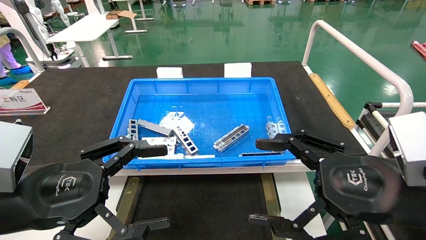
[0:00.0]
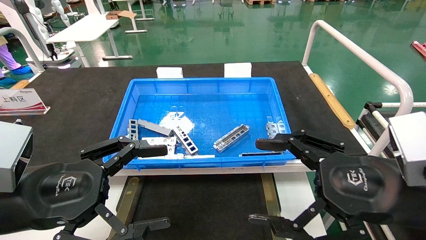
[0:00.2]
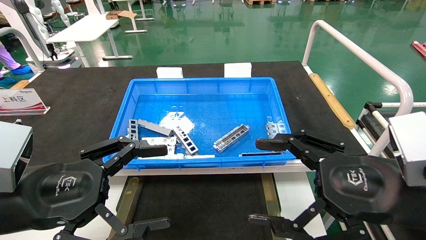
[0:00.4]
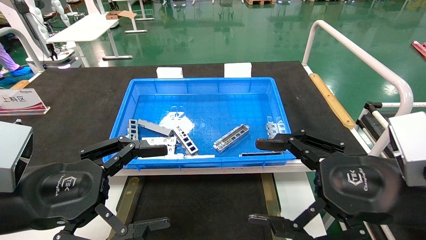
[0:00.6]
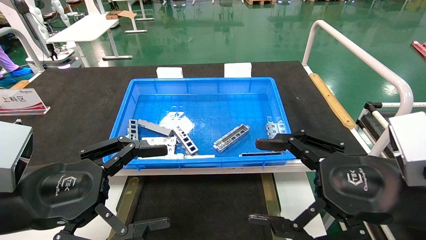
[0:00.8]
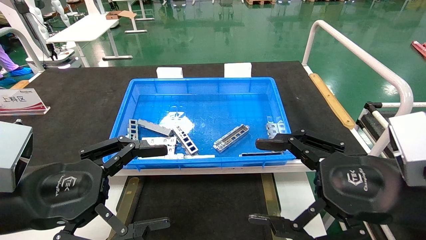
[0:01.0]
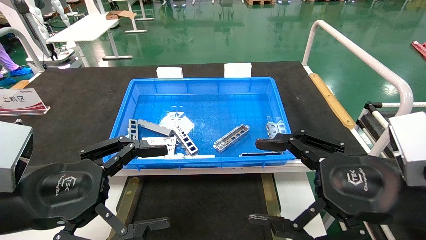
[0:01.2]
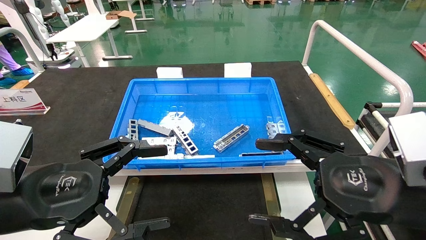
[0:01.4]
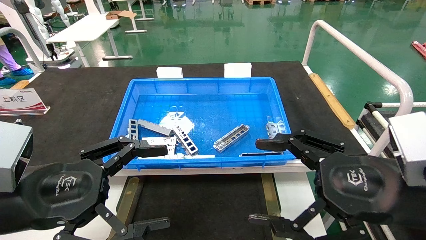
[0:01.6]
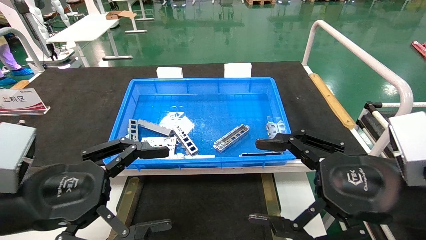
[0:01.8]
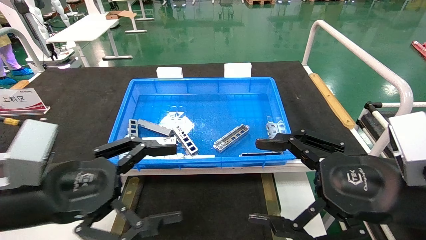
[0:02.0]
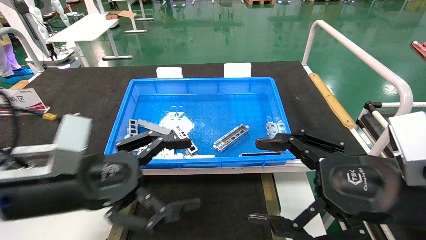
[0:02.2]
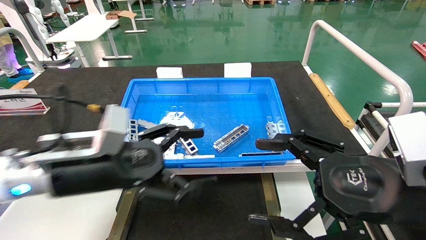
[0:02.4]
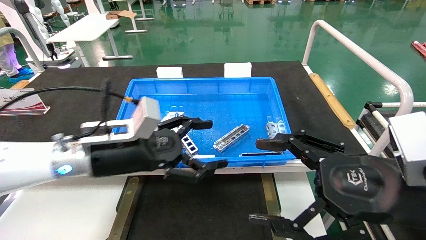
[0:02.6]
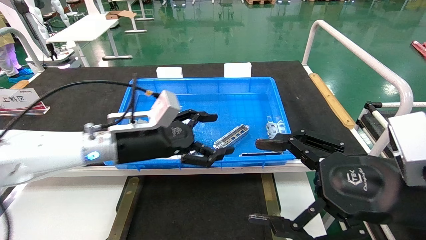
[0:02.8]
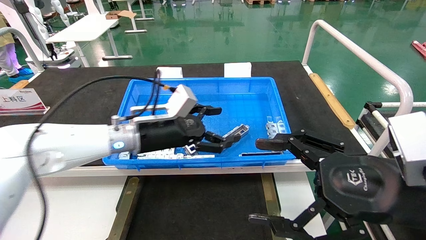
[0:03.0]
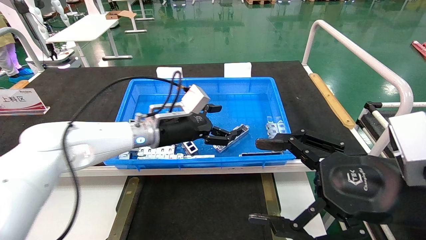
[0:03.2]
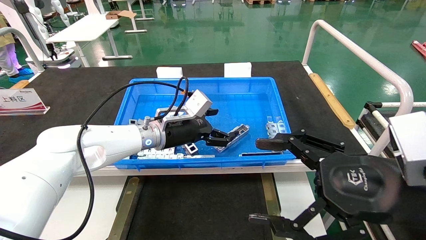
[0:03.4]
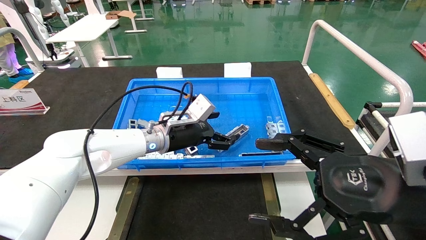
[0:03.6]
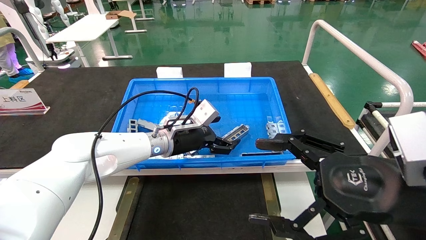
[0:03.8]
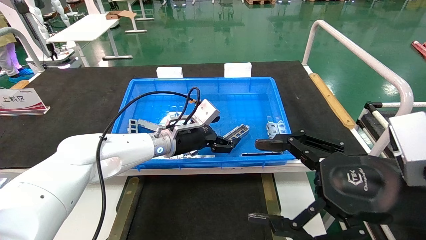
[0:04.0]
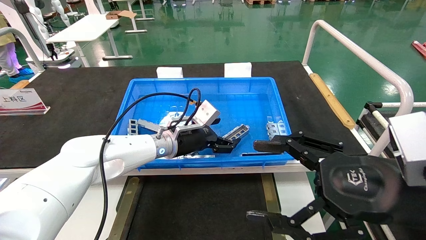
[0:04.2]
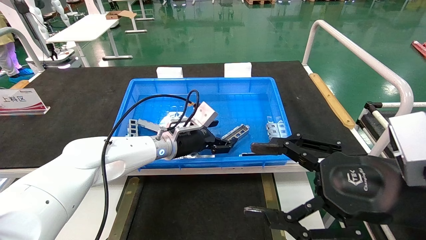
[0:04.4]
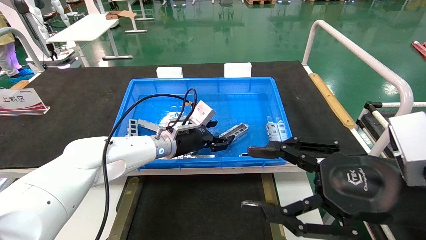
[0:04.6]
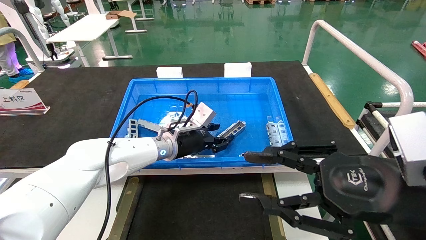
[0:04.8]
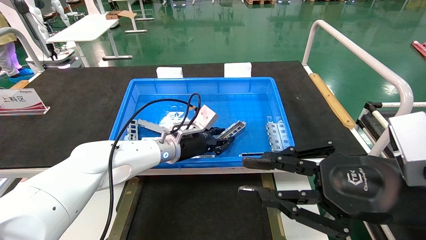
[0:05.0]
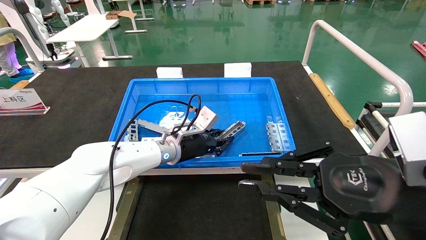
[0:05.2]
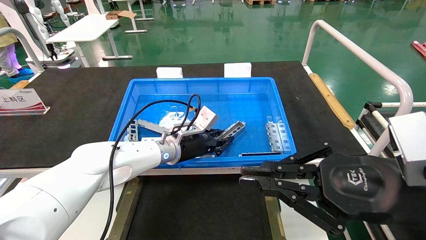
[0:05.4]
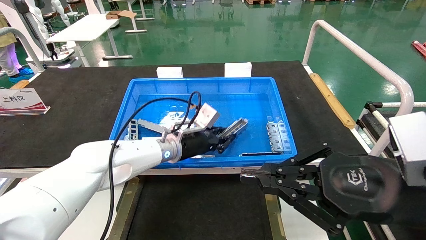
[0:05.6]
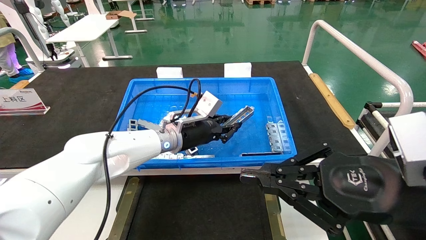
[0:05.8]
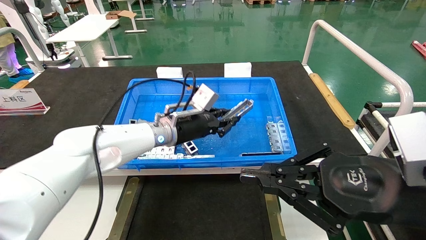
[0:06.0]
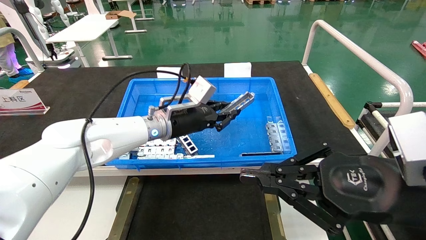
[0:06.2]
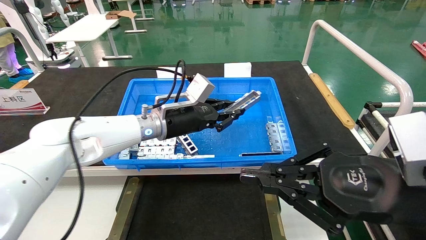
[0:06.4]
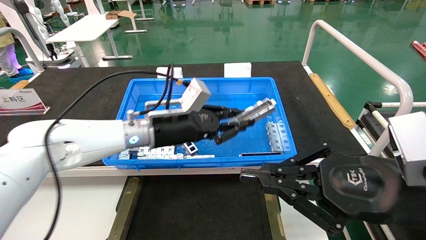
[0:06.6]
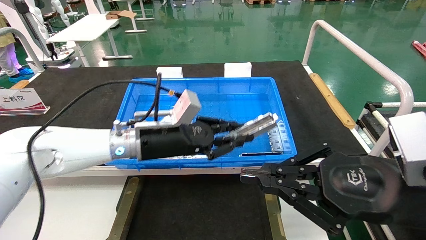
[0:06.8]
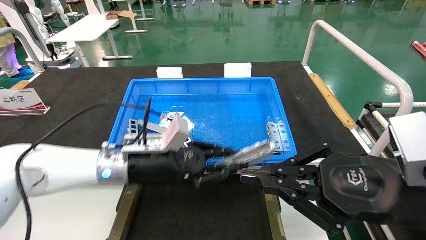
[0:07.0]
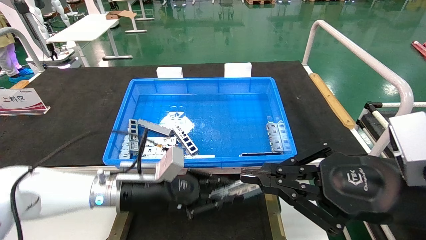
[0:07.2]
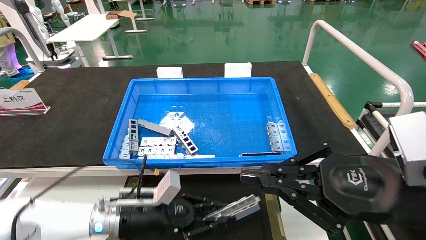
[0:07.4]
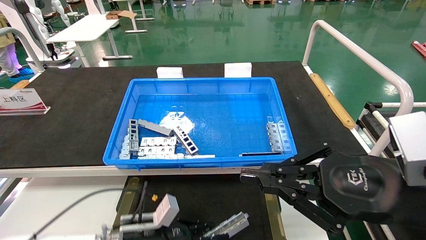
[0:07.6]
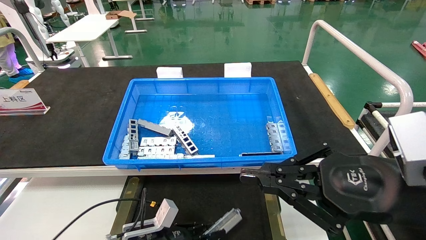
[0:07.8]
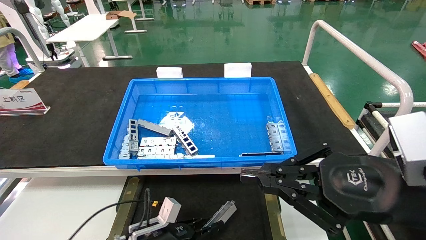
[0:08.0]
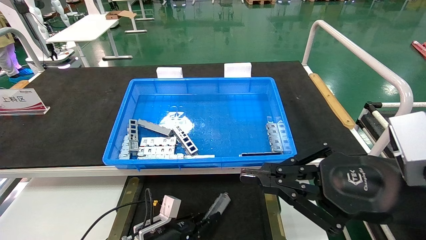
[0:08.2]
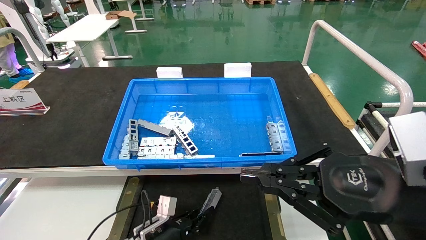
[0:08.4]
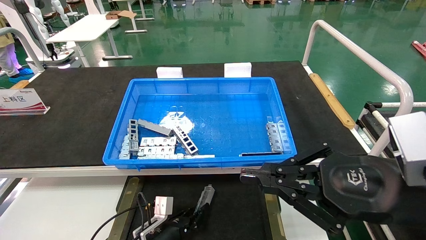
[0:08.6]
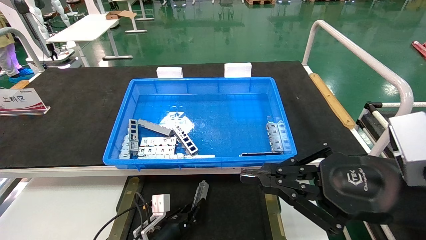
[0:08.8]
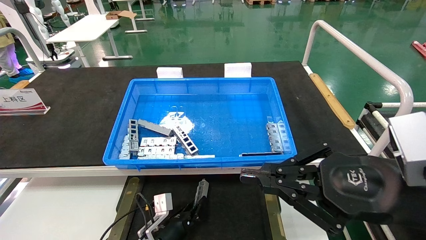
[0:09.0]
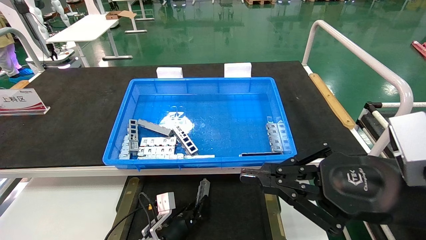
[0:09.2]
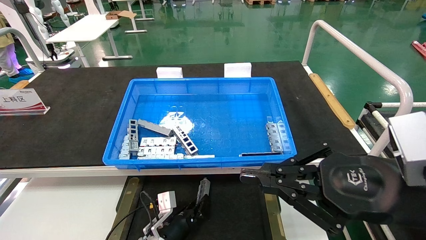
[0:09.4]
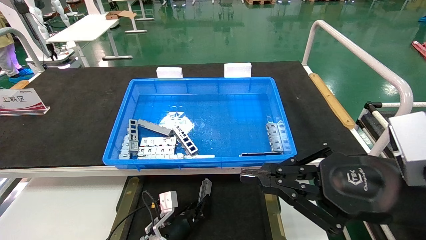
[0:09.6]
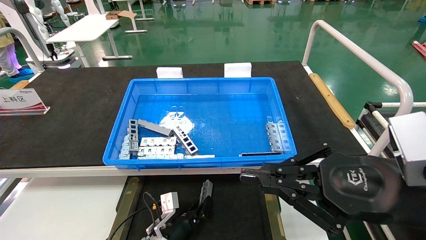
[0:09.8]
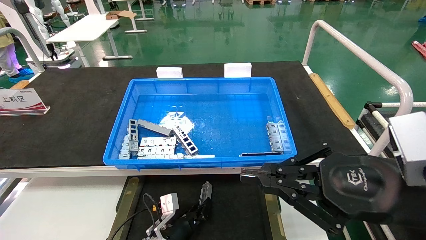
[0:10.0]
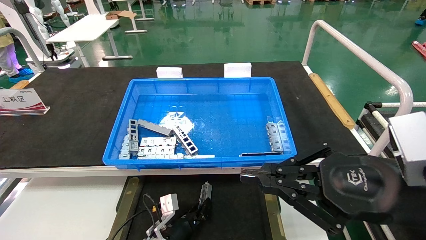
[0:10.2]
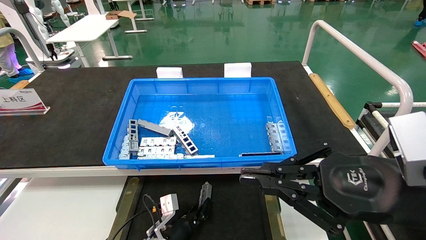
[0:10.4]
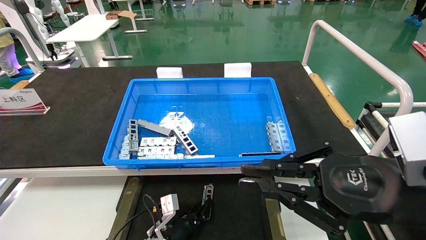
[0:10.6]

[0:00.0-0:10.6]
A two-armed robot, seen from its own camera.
Task of the whole recording: Grasp the part with one hand and place it on the black container.
Step, 0:02.2 to 0:05.2: Pick up the front USB bracket from the feeding area.
0:00.0 to 0:01.6: The two grippers keep their place.
0:01.6 to 0:03.0: The left gripper moves forward and to the right, roughly 25 cm.
0:03.0 to 0:04.6: The left gripper is displaced forward and downward by some 10 cm.
0:04.6 to 0:06.0: The right gripper closes its fingers. The left gripper closes up.
0:06.0 to 0:07.6: The left gripper goes some 25 cm downward, backward and to the left.
0:07.6 to 0:09.0: The left gripper shifts roughly 10 cm downward.
0:09.0 to 0:10.6: The grippers stay close to where they were, moving slightly.

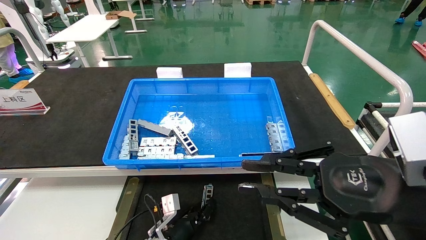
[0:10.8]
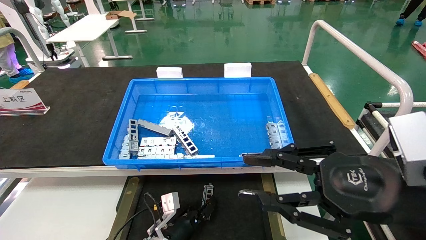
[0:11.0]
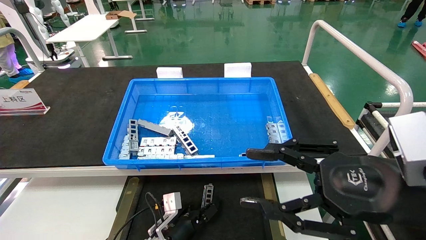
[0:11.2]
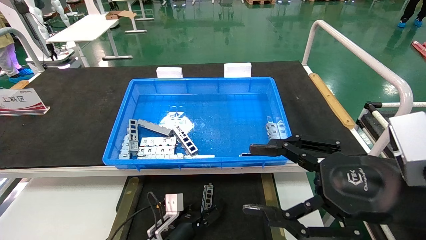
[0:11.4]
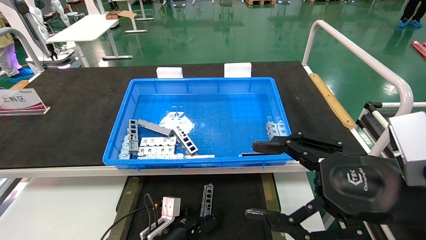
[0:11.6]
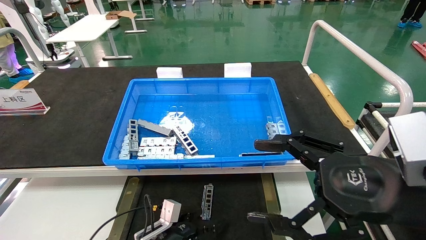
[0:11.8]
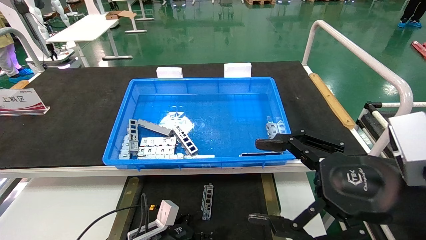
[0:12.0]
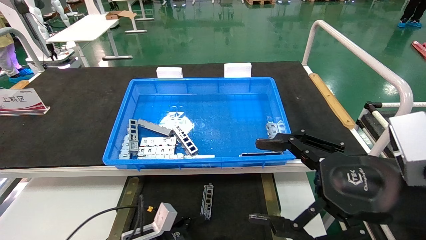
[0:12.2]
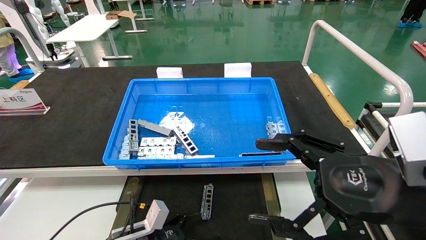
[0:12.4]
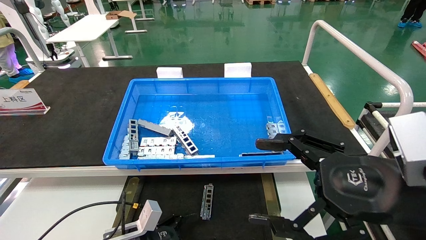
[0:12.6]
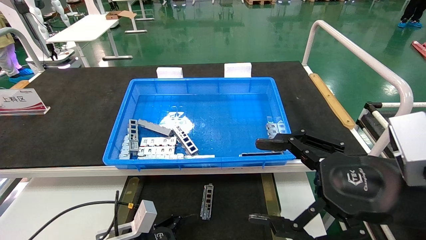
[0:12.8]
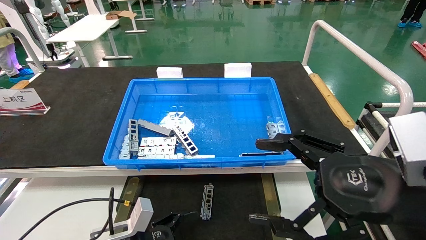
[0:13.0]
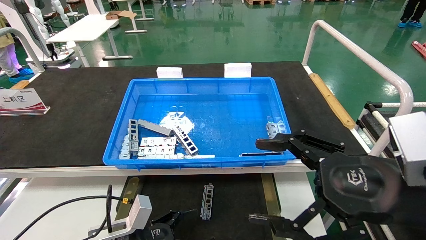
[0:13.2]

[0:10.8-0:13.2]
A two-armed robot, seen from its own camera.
Task of the whole recording: Grasp the part with one hand and place it on the black container.
0:10.8 to 0:12.0: The left gripper moves to the left, roughly 5 cm, and opens its fingers; the right gripper opens.
0:12.0 to 0:13.2: The left gripper is displaced upward and backward by roughly 10 cm.
